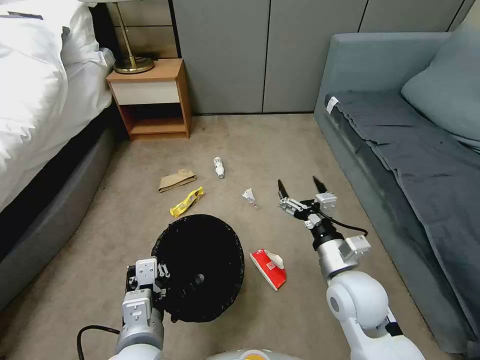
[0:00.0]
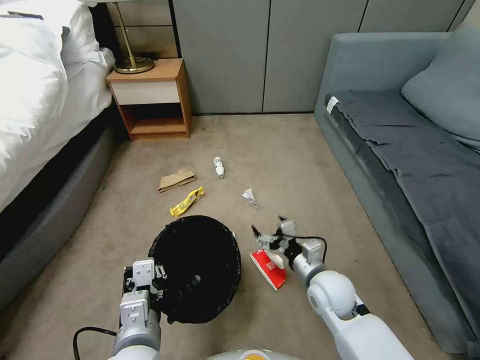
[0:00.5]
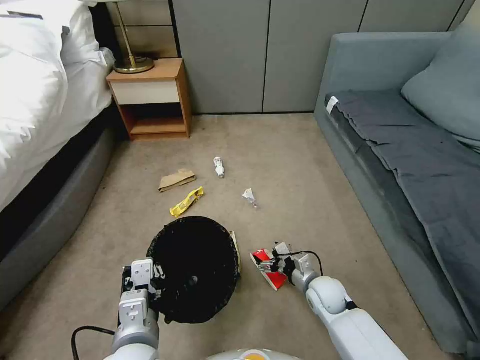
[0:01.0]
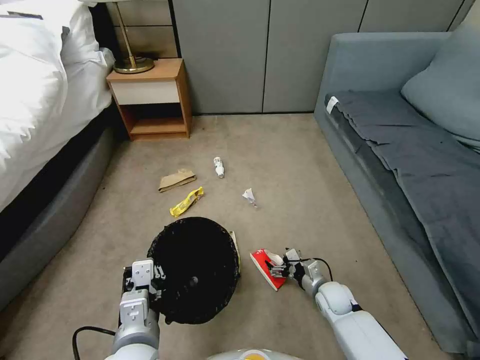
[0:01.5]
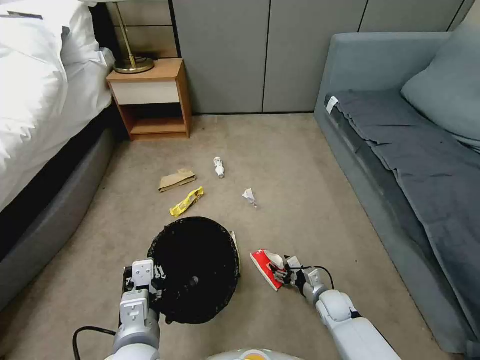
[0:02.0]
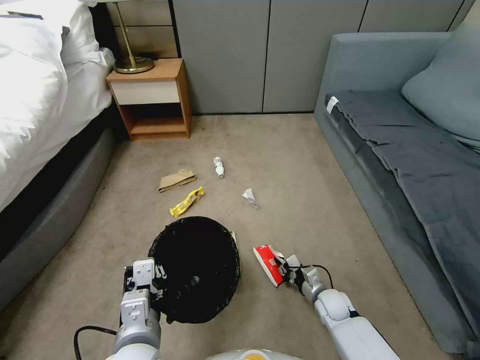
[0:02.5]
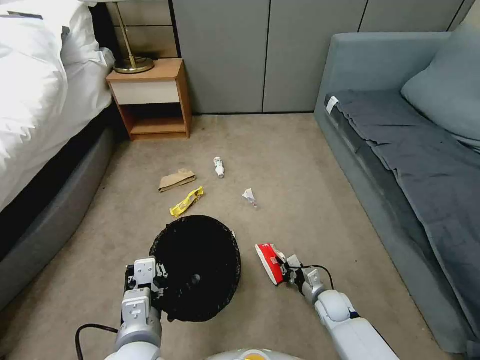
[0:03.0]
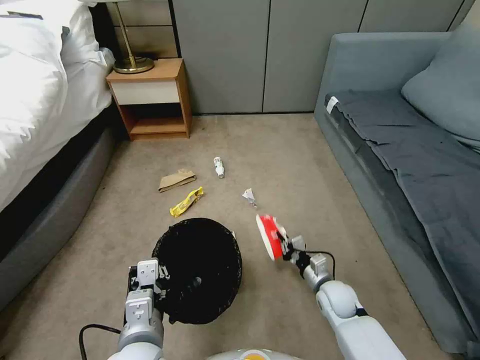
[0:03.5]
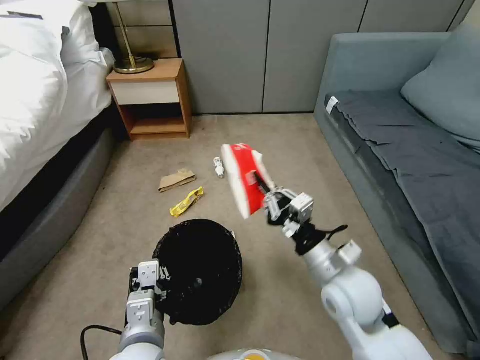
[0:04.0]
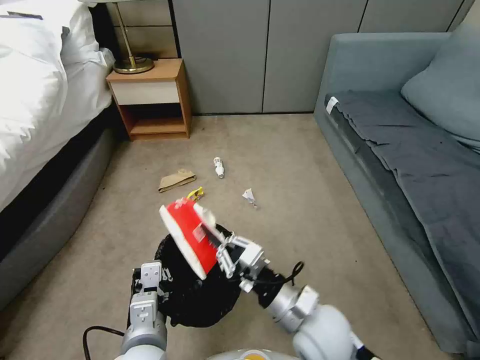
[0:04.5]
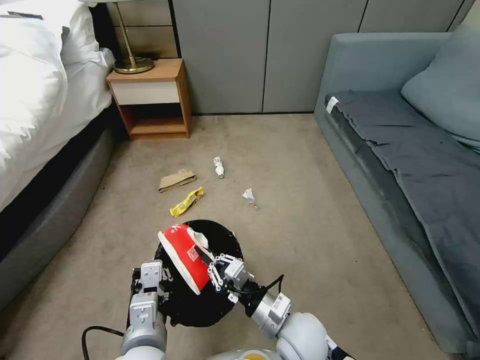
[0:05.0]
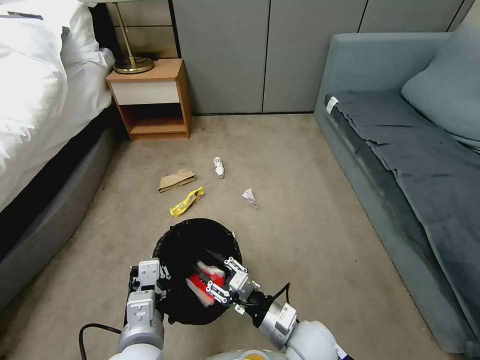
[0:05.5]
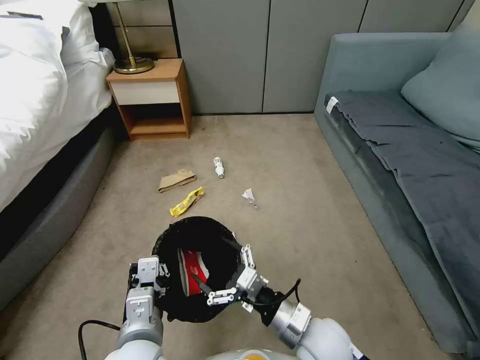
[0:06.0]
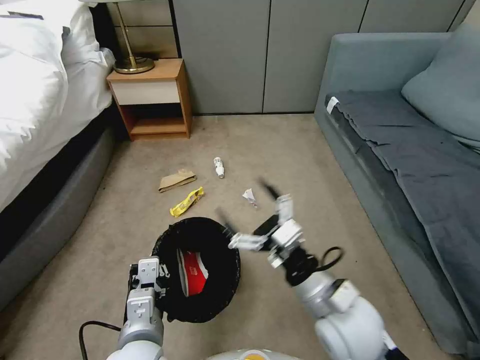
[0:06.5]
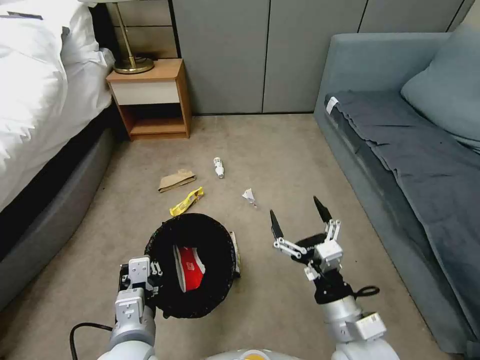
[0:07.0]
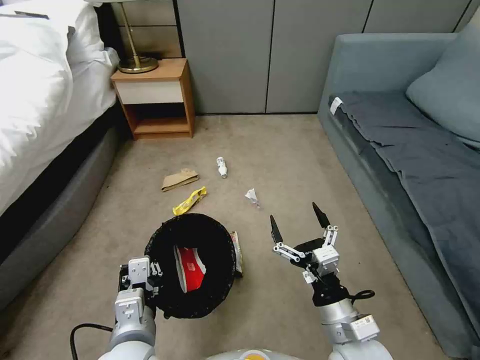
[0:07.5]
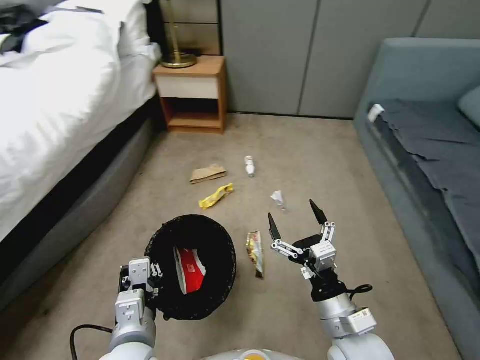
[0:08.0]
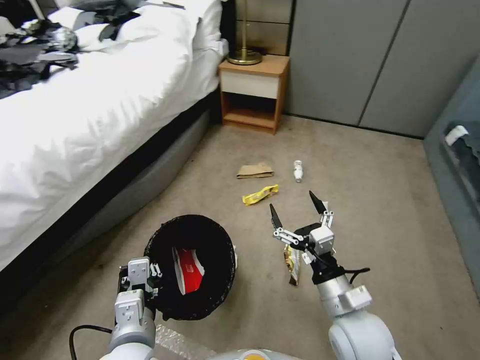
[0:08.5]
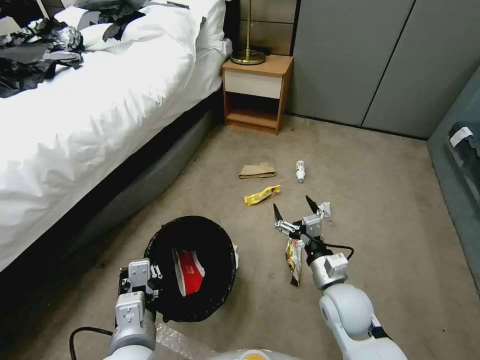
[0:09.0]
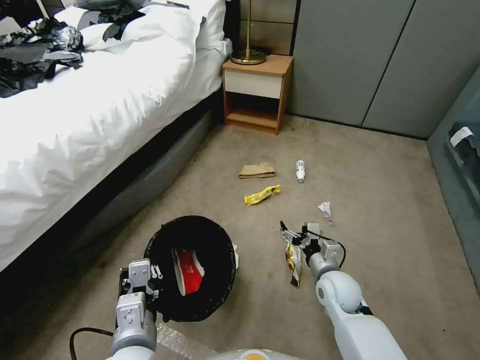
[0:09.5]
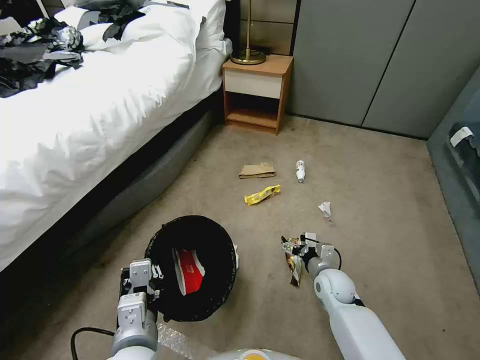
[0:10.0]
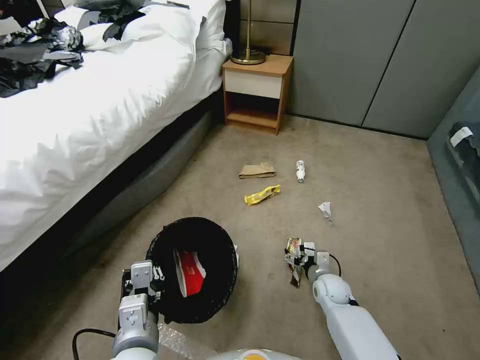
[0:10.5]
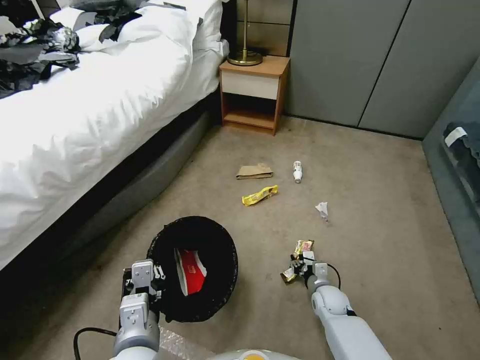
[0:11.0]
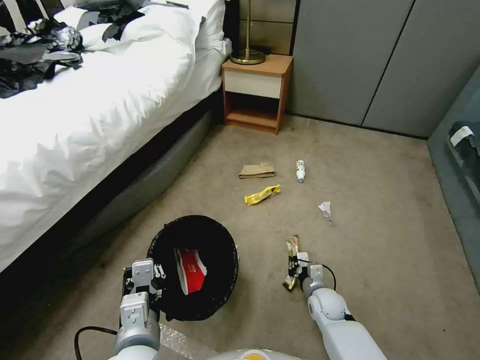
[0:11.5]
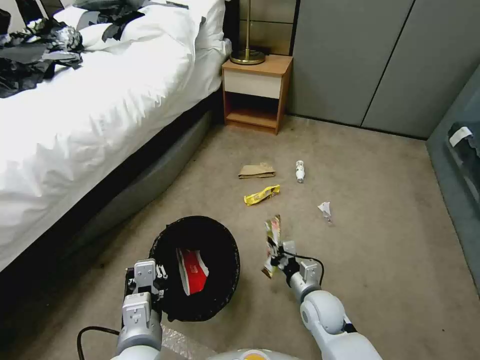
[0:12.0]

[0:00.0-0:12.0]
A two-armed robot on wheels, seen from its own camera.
Task of the whole recording: Pick up the trash bin, then pick up the garbage from the floor and place it into the trash bin.
0:00.0 to 0:02.0: The right gripper travels downward by some 30 cm.
0:02.0 to 0:04.0: The right gripper travels upward by roughly 30 cm, and closes its fingers.
0:04.0 to 0:06.0: The right gripper goes some 10 cm downward and backward, and opens its fingers.
0:06.0 to 0:08.0: The right gripper reaches some 10 cm upward, then returns.
0:08.0 to 0:10.0: The right gripper travels forward and downward by about 25 cm.
0:10.0 to 0:12.0: The right gripper moves backward and to the left, some 10 cm, goes downward and returns, roughly 10 cm each way, and closes.

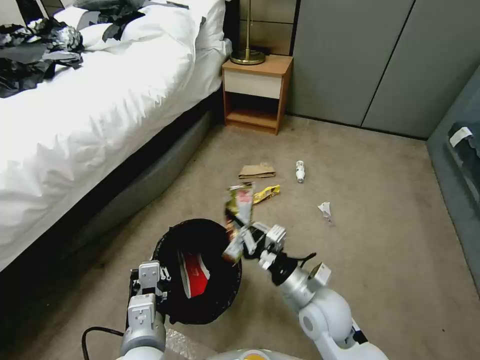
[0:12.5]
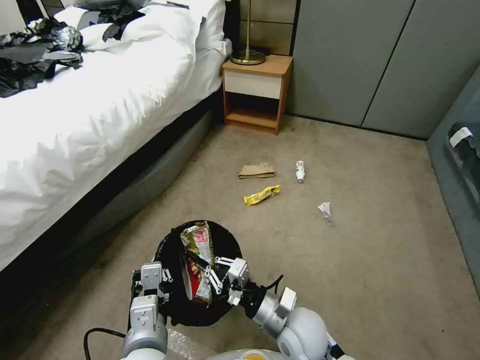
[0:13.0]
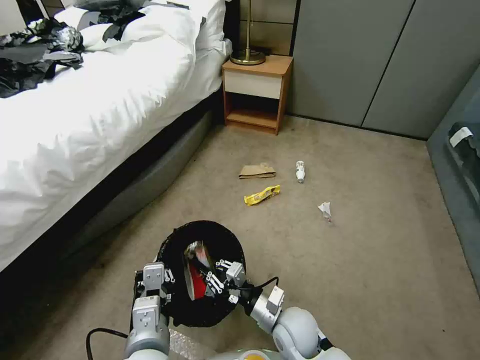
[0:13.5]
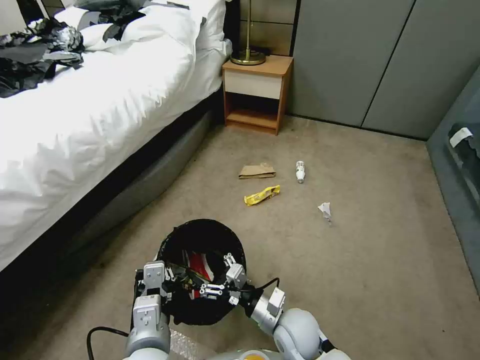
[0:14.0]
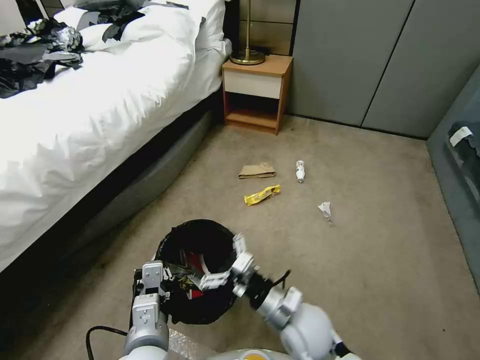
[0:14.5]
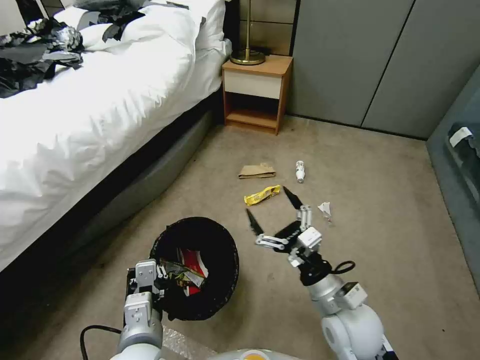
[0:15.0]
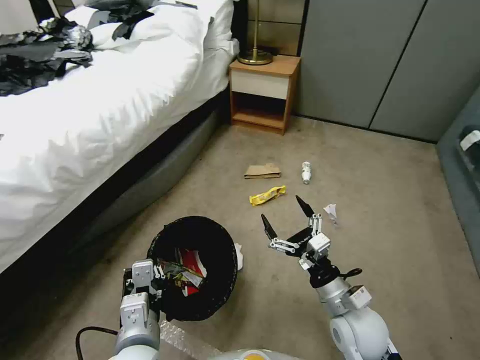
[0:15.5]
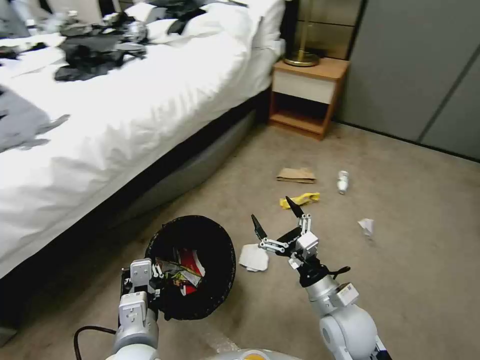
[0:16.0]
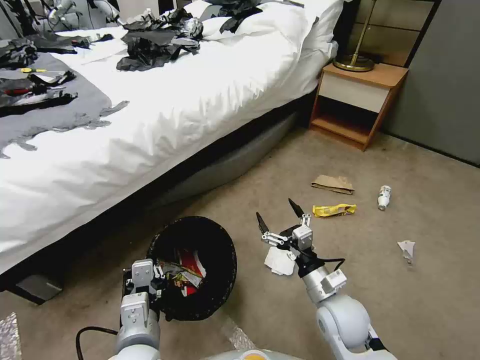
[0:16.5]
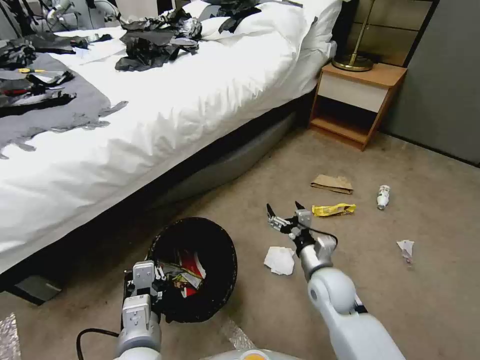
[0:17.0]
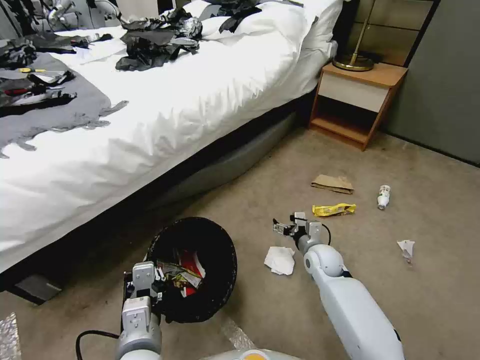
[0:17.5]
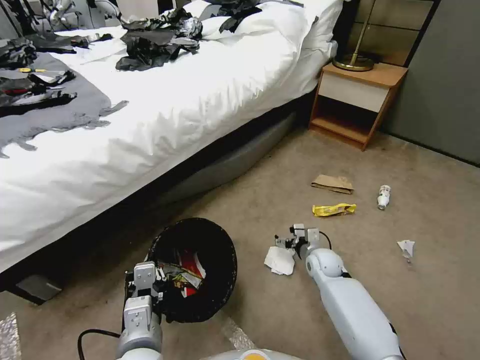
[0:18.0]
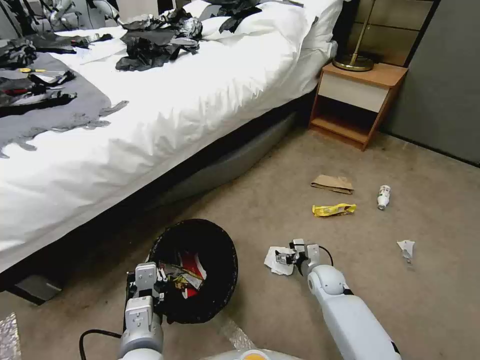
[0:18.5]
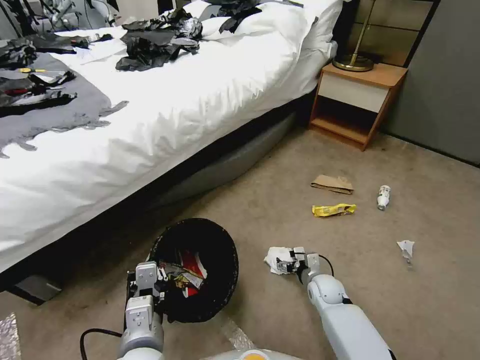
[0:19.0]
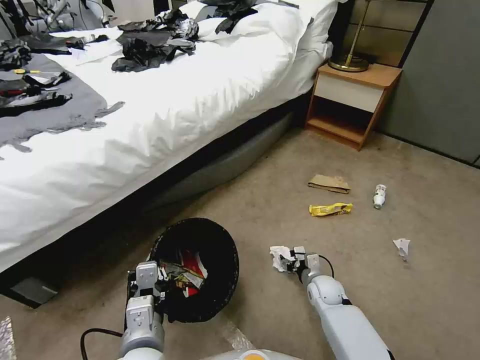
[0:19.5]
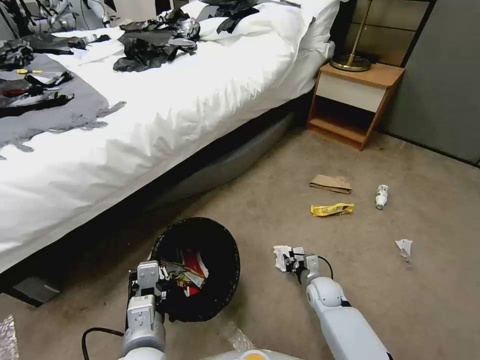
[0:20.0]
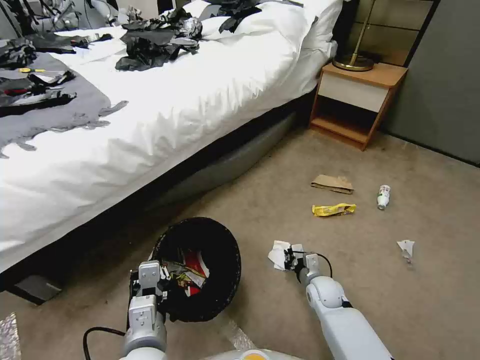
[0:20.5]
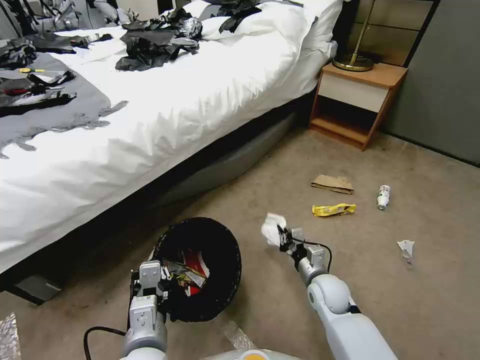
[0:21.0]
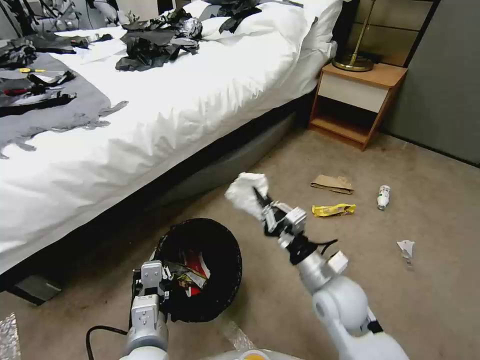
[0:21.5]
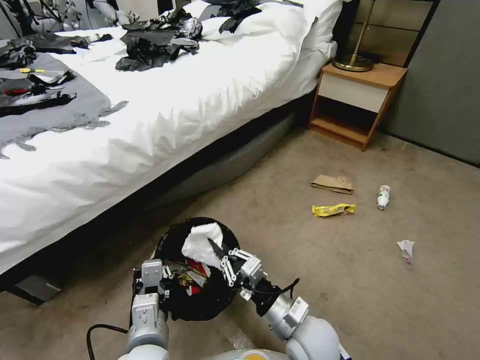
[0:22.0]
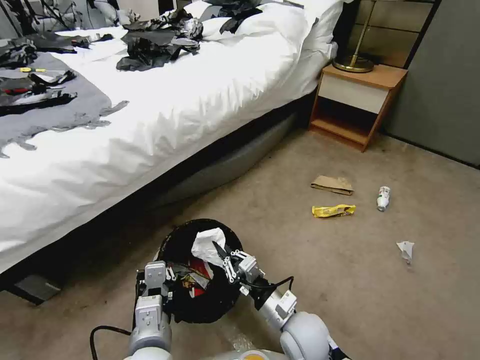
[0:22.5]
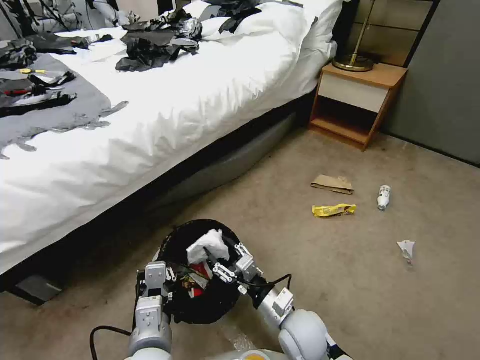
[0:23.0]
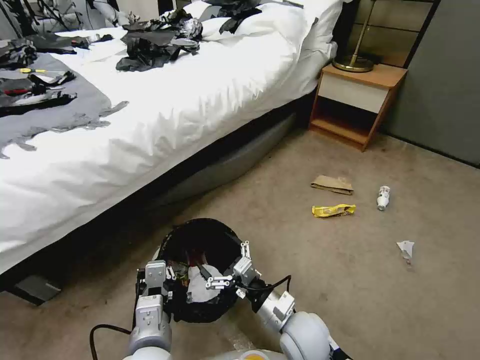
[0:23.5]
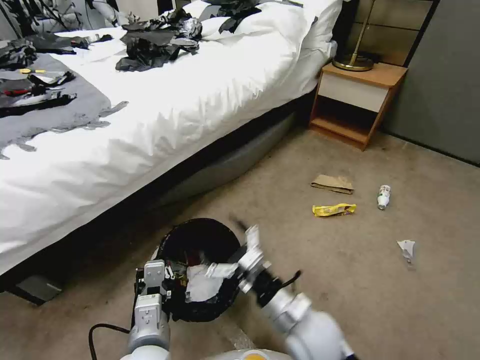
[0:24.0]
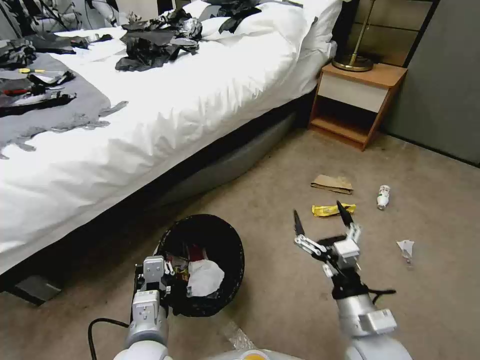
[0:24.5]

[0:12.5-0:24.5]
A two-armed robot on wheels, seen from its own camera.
Task of the whole recording: Pick up the trash bin, then pick up the garbage from the floor and place it into the trash bin.
0:12.5 to 0:14.5: The right gripper reaches about 10 cm downward, then returns, and opens up.
0:14.5 to 0:16.5: The right gripper goes approximately 10 cm to the right.
0:16.5 to 0:18.5: The right gripper travels downward and forward by some 20 cm.
0:18.5 to 0:20.5: The right gripper closes up.
0:20.5 to 0:22.5: The right gripper is displaced backward, upward and to the left by some 20 cm.
0:22.5 to 0:24.5: The right gripper goes approximately 15 cm to the right and upward, and opens its fingers.

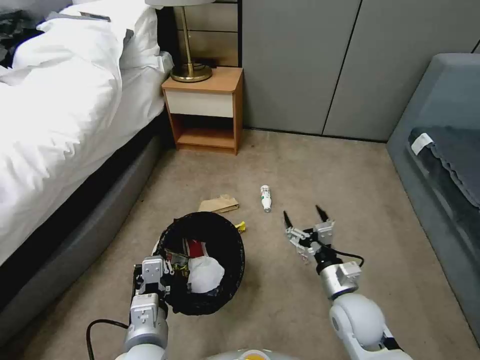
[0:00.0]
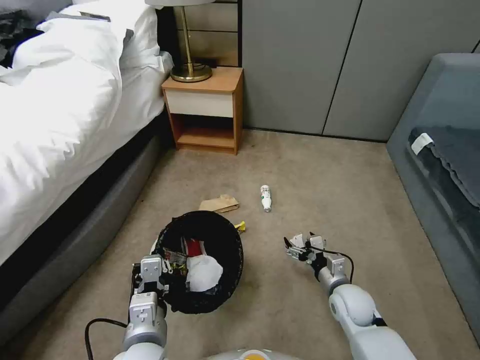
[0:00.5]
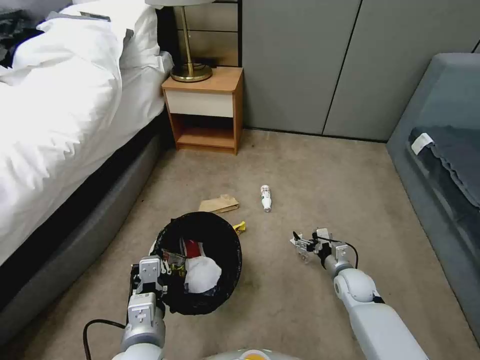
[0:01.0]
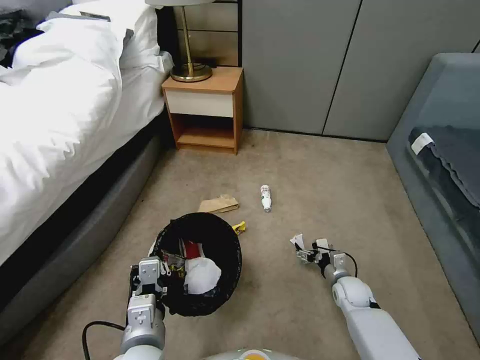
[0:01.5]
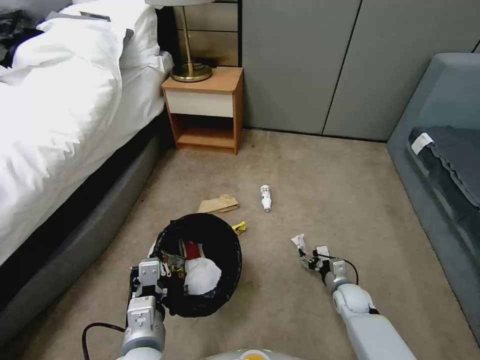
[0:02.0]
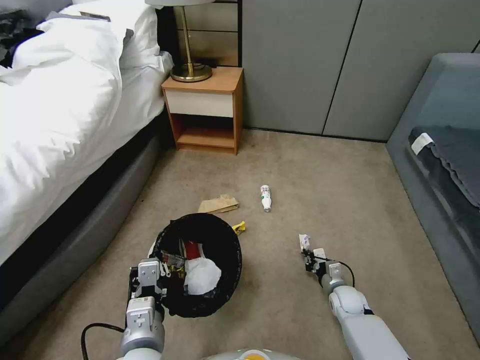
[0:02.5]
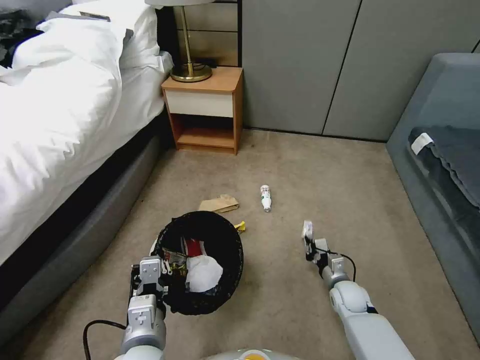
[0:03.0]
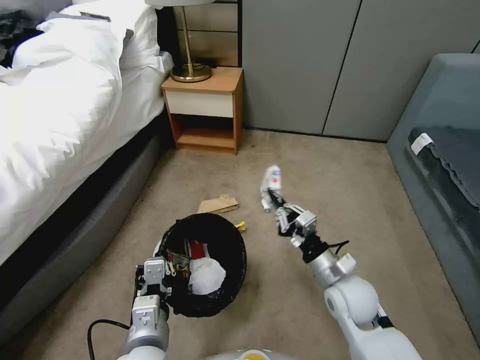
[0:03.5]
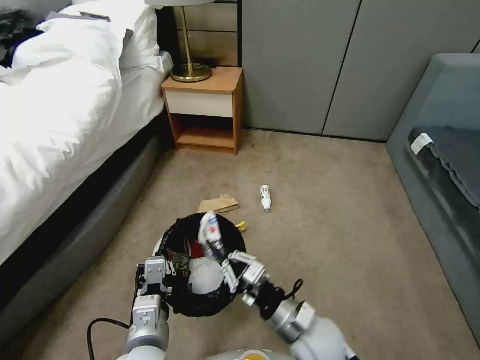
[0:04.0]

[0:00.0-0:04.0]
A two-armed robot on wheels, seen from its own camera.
Task of the whole recording: Pick up the trash bin, then pick up the garbage from the floor and place it into the trash bin.
0:00.0 to 0:02.0: The right gripper is displaced downward, to the right and forward by about 20 cm.
0:02.0 to 0:04.0: The right gripper shifts some 30 cm upward, to the left and backward, and closes up.
